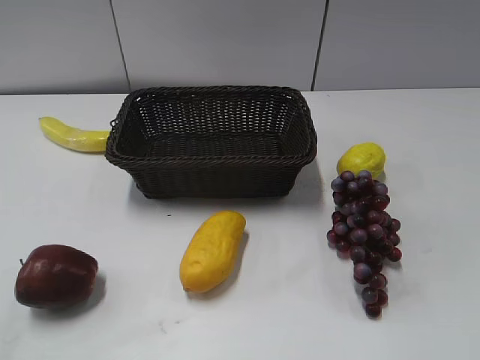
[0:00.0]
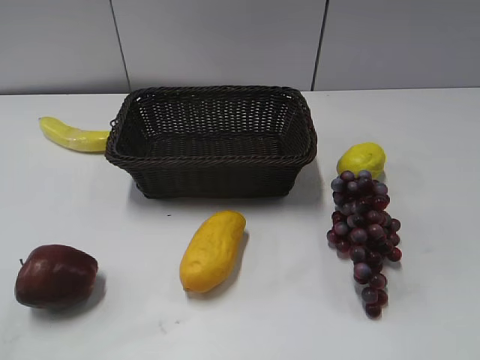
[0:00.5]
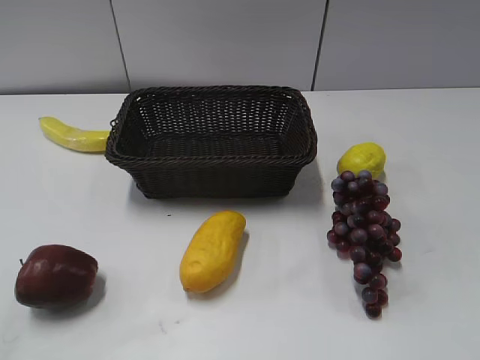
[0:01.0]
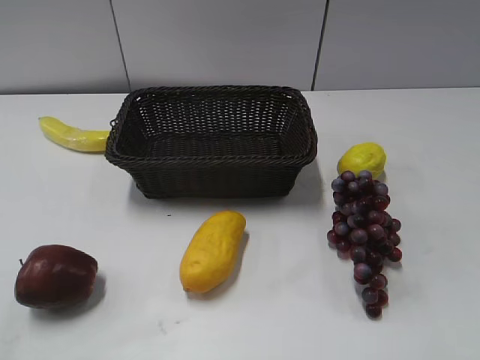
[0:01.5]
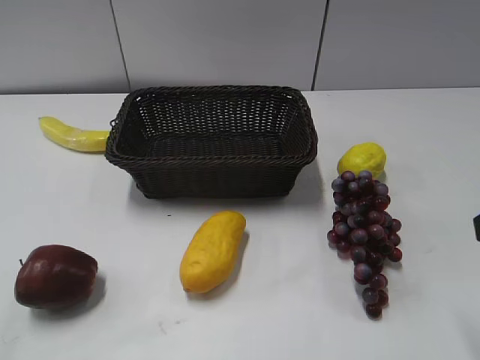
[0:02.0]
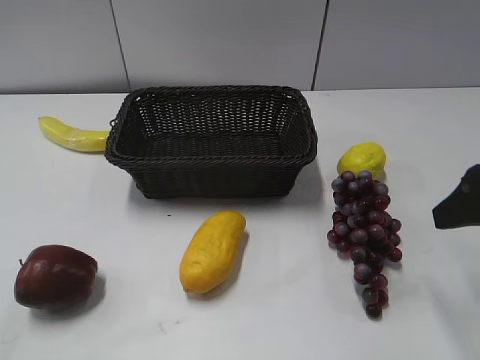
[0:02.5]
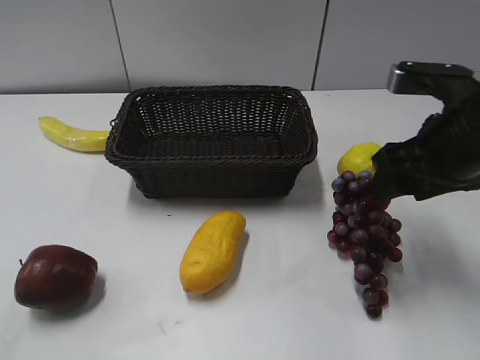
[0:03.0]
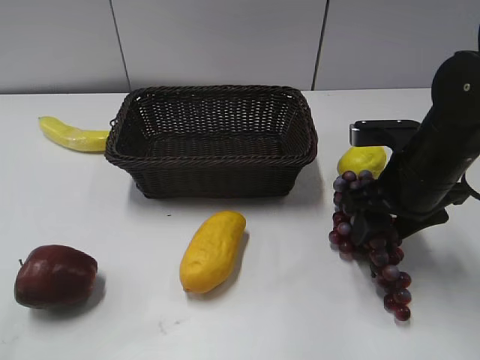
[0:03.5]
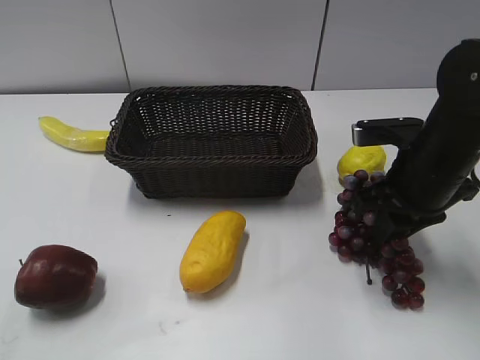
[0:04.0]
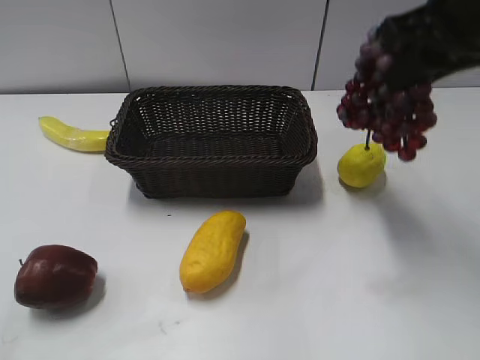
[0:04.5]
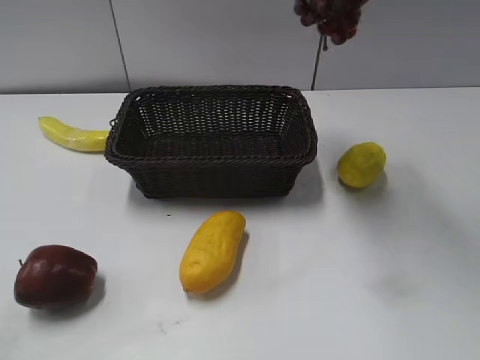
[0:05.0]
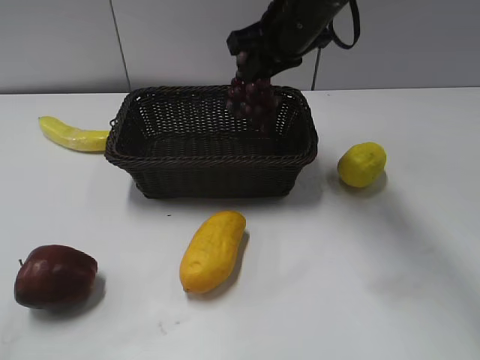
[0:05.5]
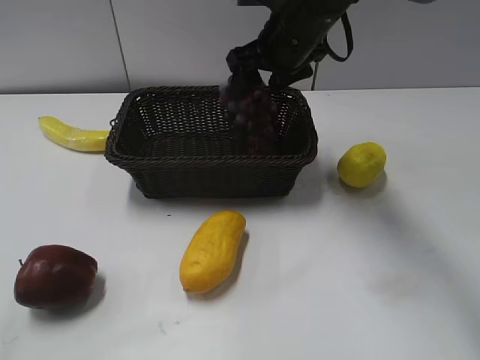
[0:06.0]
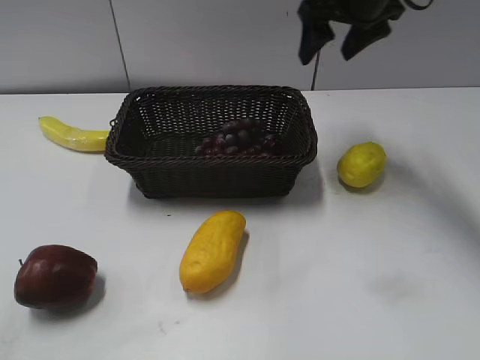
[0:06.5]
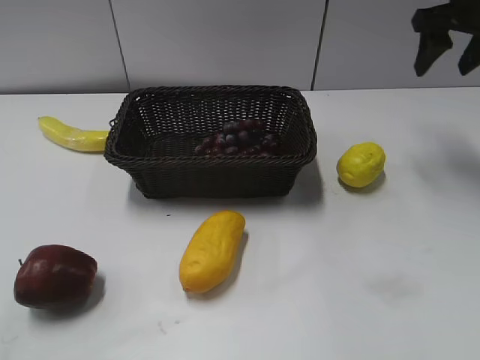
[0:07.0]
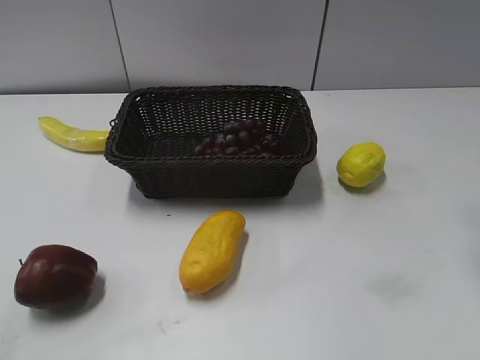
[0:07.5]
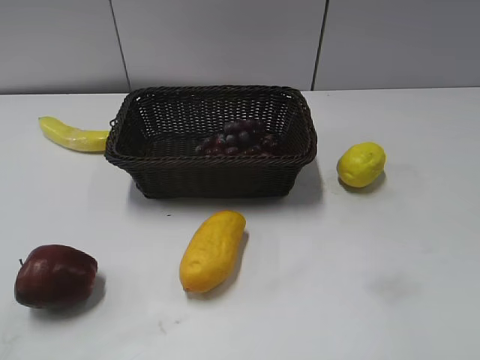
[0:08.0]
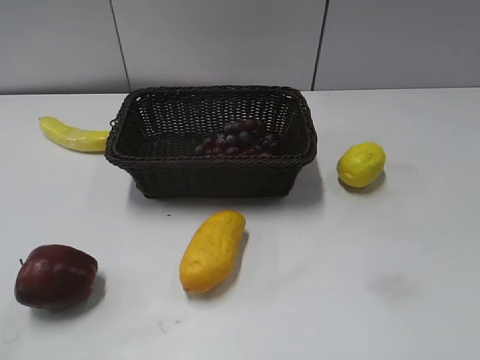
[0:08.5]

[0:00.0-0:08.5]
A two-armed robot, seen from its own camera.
Step, 0:02.0 to 0:04.0: Grasp the grape with right gripper.
Step, 0:04.5 to 0:06.0: Place the grape in the basket with right gripper.
0:02.0 to 0:04.0: The right gripper shifts some 15 cm forward, downward and to the left, and closes.
0:04.0 to 0:06.5: The right gripper moves up and down over approximately 25 cm, changing direction 2 times, and opens.
0:06.5 to 0:08.5: The right gripper shifts roughly 40 cm backward.

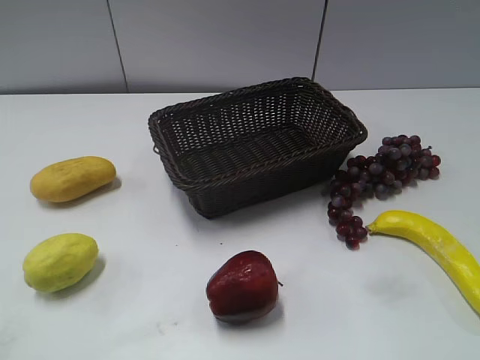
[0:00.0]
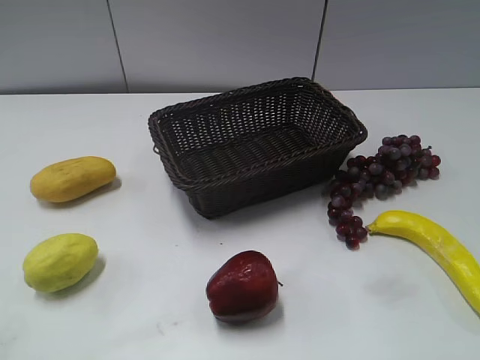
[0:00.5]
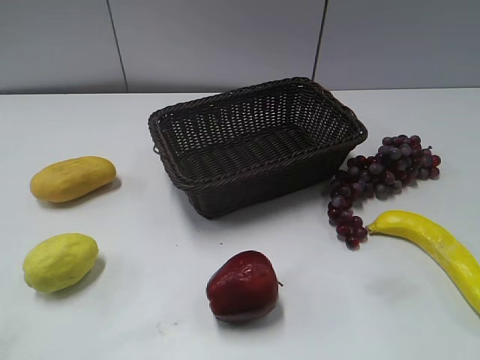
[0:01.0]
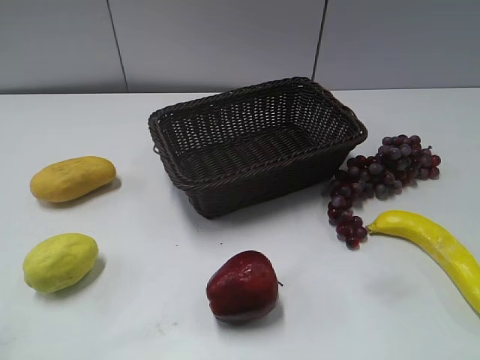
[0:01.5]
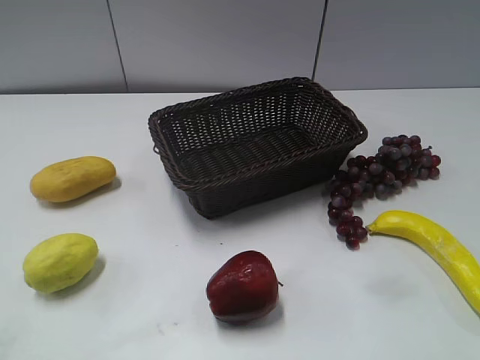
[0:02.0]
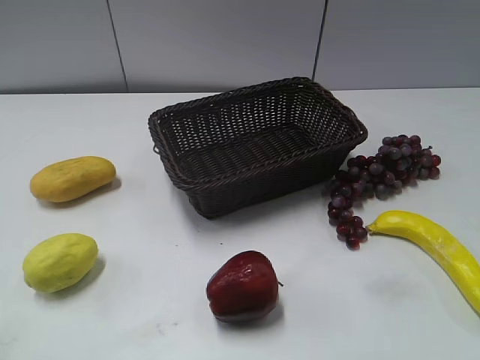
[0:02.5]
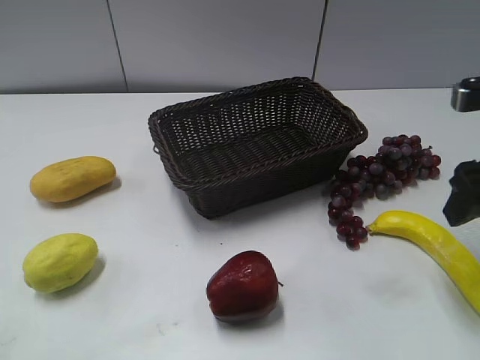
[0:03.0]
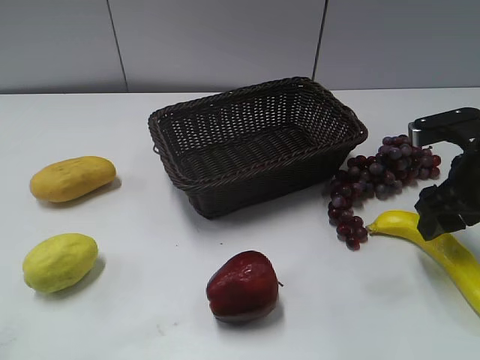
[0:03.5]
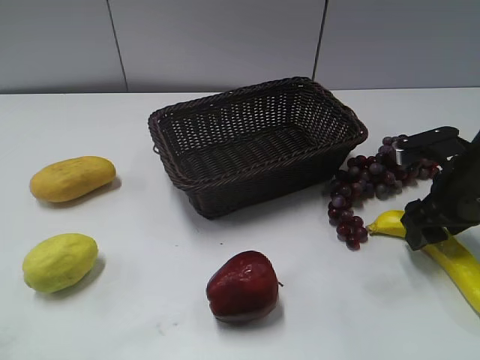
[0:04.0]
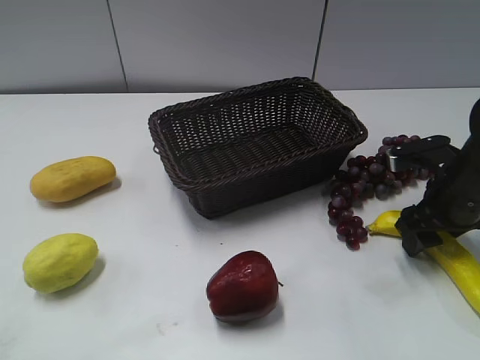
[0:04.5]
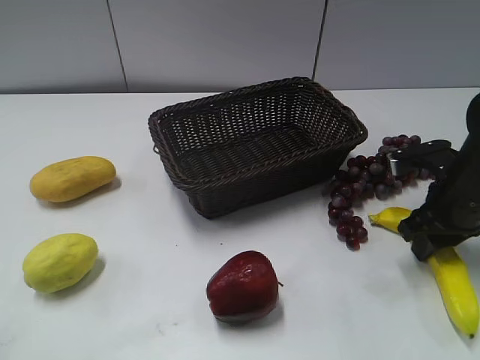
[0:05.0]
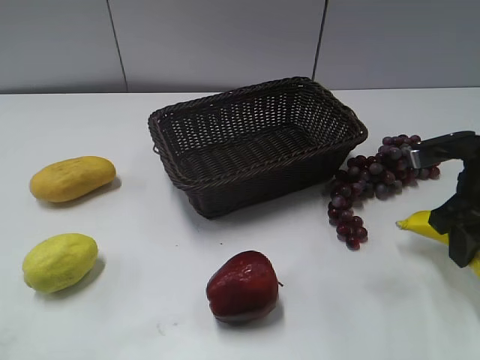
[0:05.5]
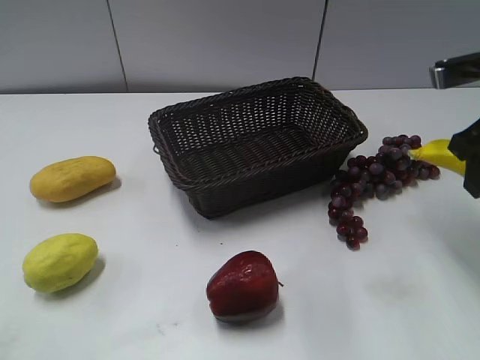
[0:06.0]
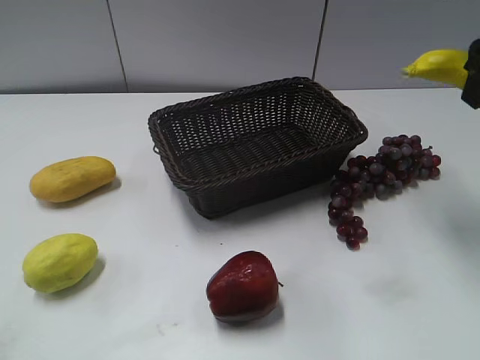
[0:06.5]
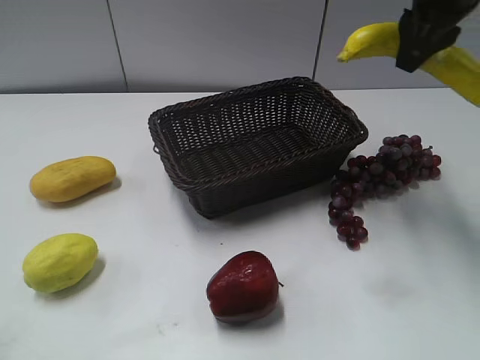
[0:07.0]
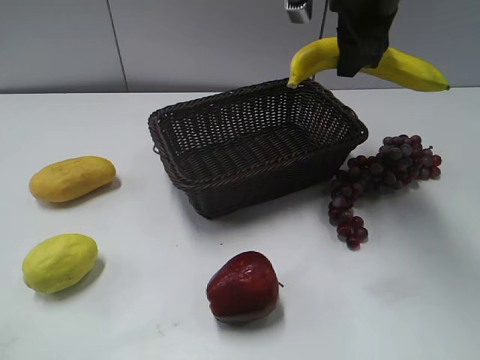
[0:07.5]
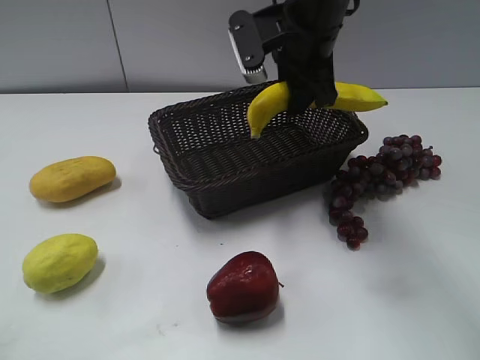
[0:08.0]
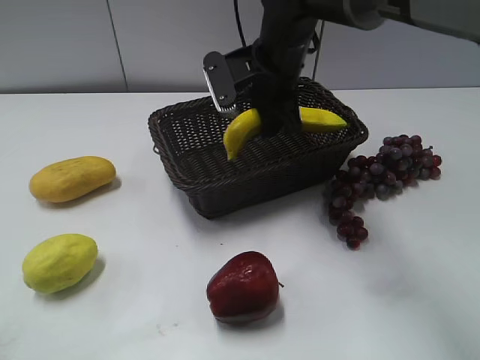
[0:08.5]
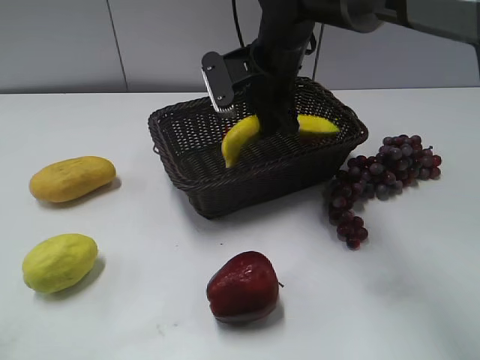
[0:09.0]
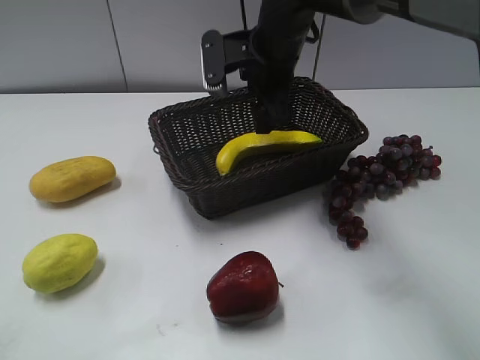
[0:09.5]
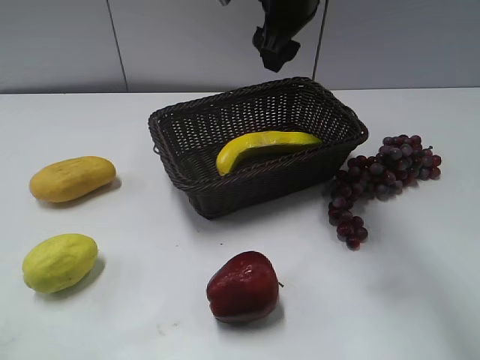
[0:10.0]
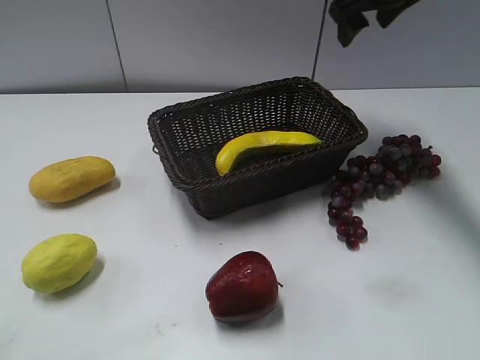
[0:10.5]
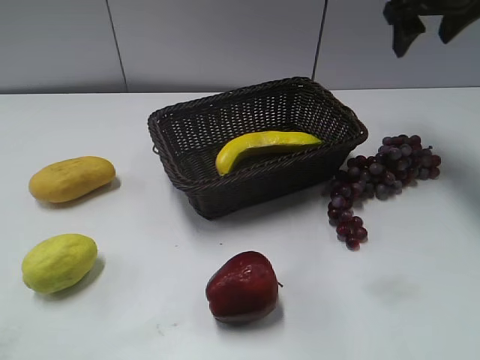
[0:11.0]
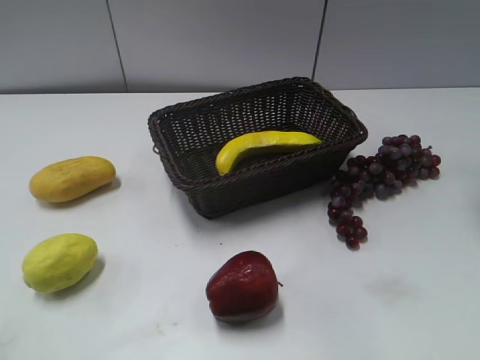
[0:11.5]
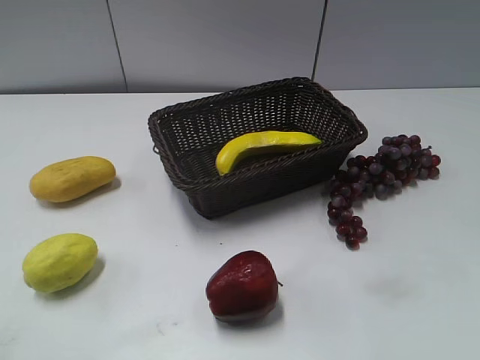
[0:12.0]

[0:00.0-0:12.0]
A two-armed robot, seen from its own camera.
Step, 0:02.5 to 0:04.5: Grasp the banana with right gripper.
Step, 0:05.0 to 0:09.5: Place the banana in the basket with right gripper.
0:02.0 to 0:04.0: The right gripper heads forward and downward, covering roughly 25 cm.
0:04.0 to 0:06.0: The right gripper moves upward, some 10 cm, and closes.
0:06.0 to 0:08.0: The right gripper heads to the left and forward, covering some 20 cm.
0:08.0 to 0:10.0: The right gripper changes place by about 5 cm, and opens up.
0:10.0 to 0:12.0: The right gripper goes approximately 30 cm to the right and backward.
